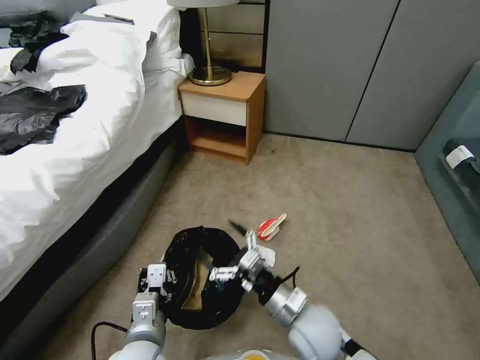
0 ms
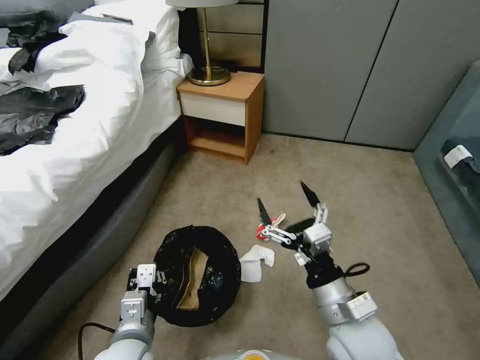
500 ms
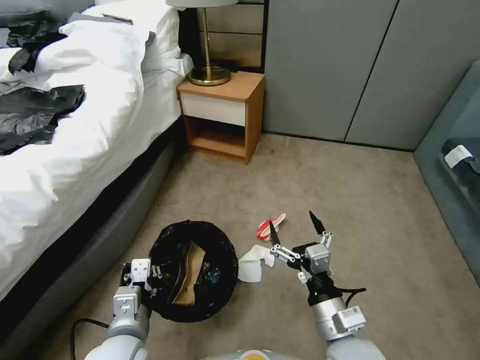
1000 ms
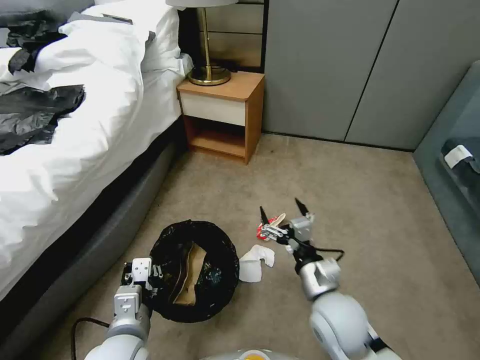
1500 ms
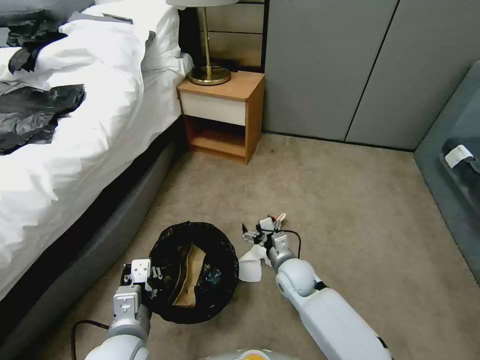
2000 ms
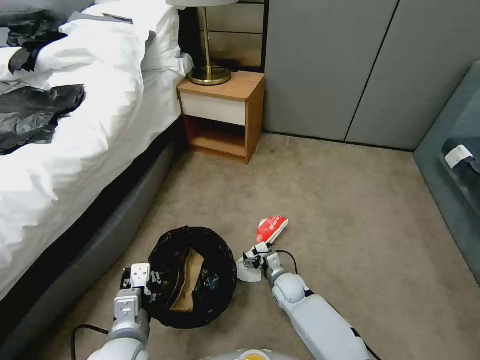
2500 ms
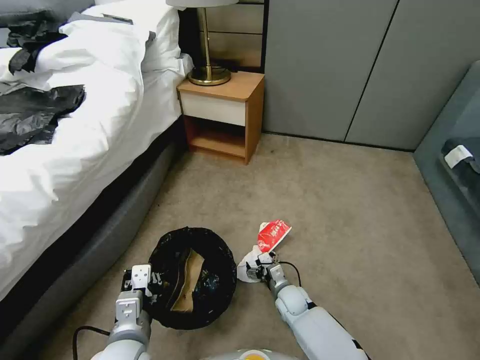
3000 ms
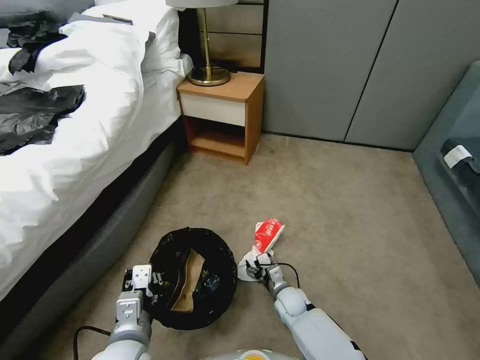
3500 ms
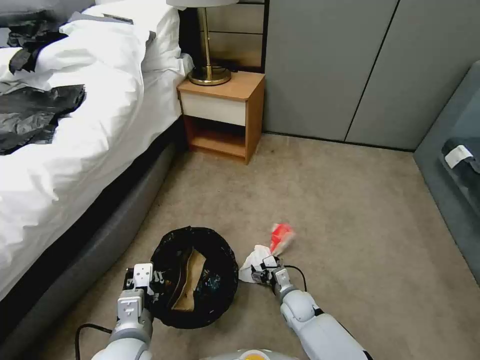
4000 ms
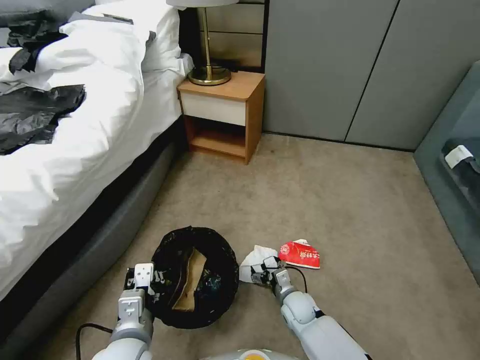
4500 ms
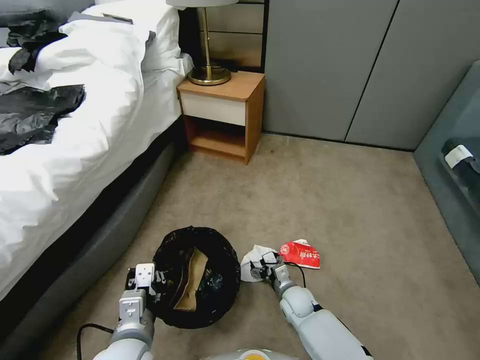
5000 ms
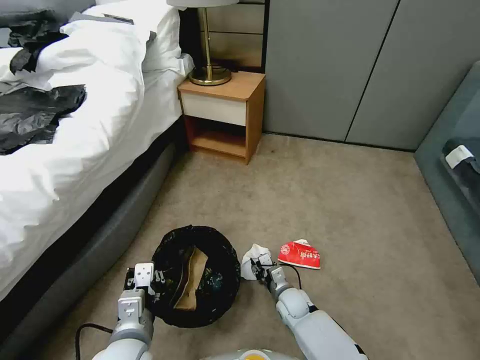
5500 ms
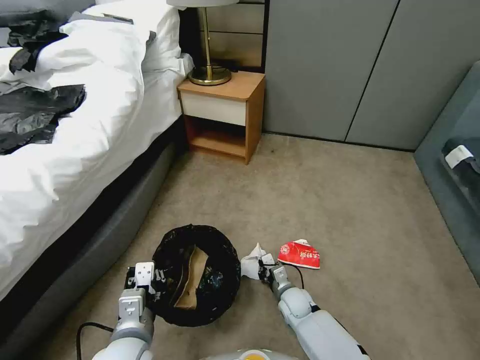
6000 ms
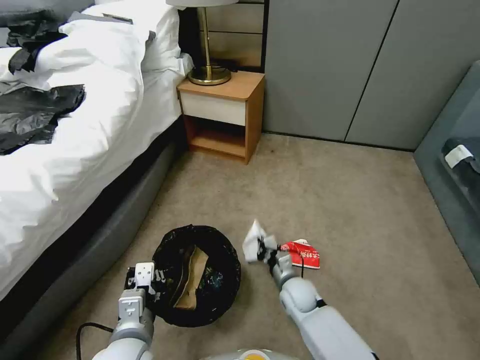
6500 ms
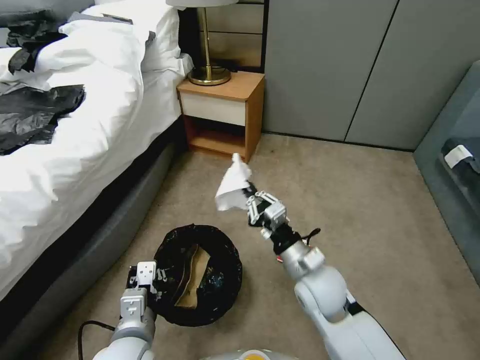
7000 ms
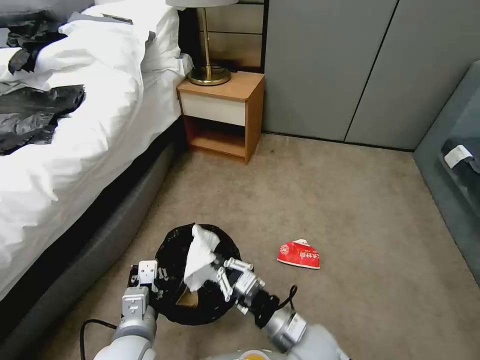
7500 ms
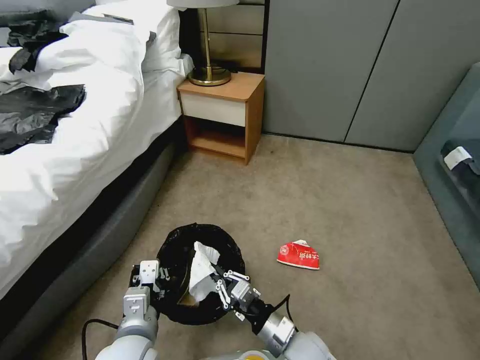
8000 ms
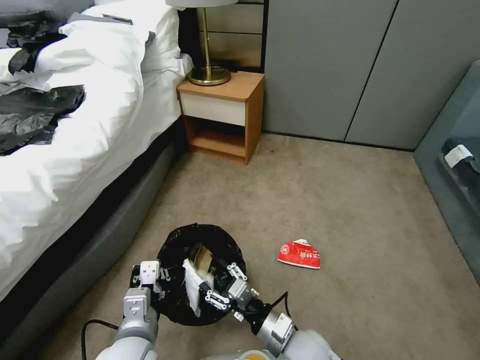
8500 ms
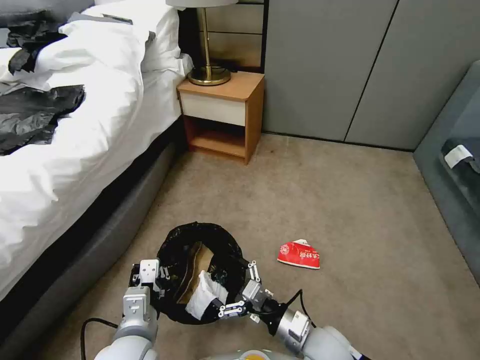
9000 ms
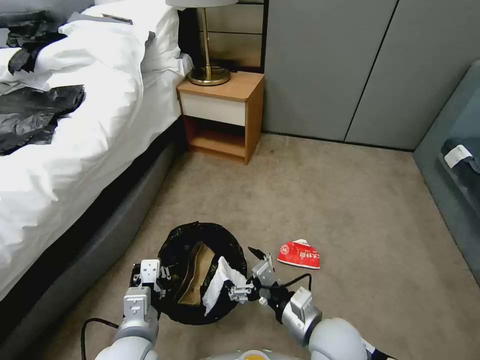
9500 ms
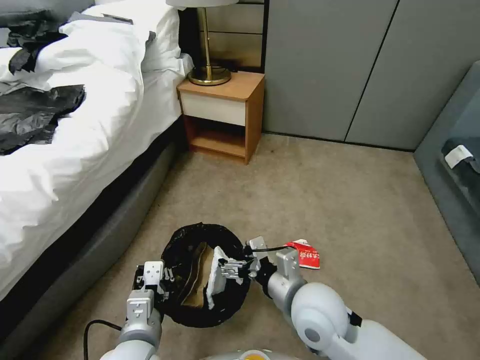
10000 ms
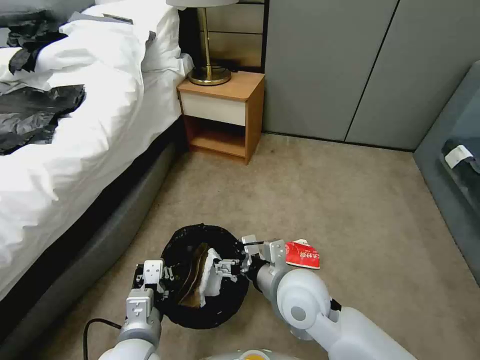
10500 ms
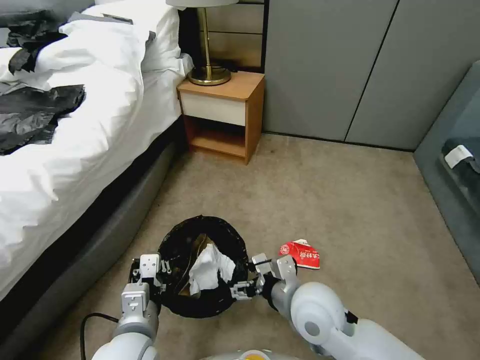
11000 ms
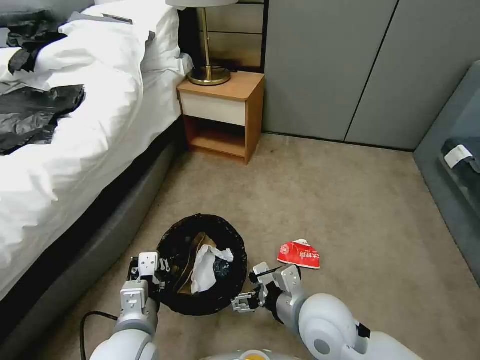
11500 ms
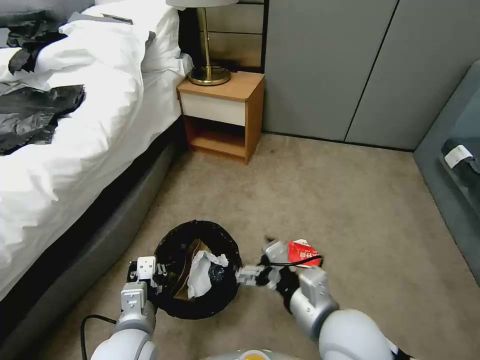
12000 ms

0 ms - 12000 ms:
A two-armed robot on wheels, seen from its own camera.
Task of the whole recording: Pick up the trash bin, then pick up the garbage from the floor and place it into the trash bin.
0 ms - 2000 ms: The right gripper moves forward and downward, some 15 cm.
2000 ms - 4000 ms: The right gripper travels downward by approximately 15 cm.
4000 ms - 6000 ms: The right gripper closes.
6000 ms - 8000 ms: The right gripper goes approximately 20 cm upward and backward.
8000 ms - 10000 ms: The right gripper goes some 15 cm upward, and opens up.
10000 ms - 12000 ms: The right gripper moves backward, about 5 cm.

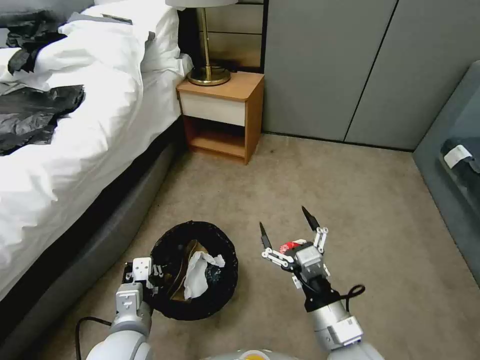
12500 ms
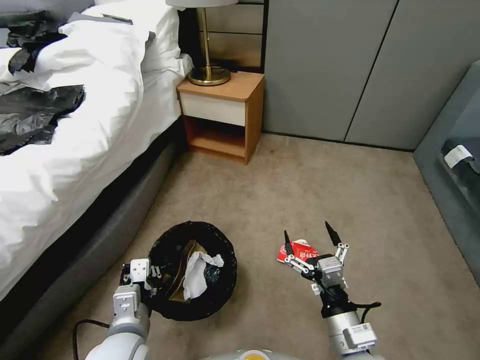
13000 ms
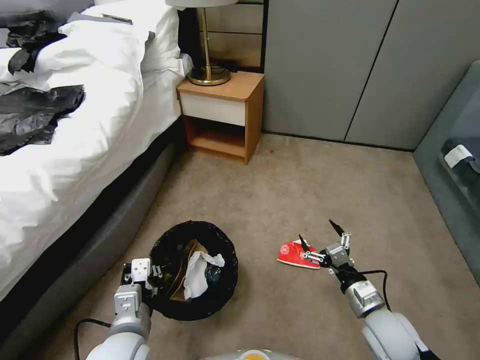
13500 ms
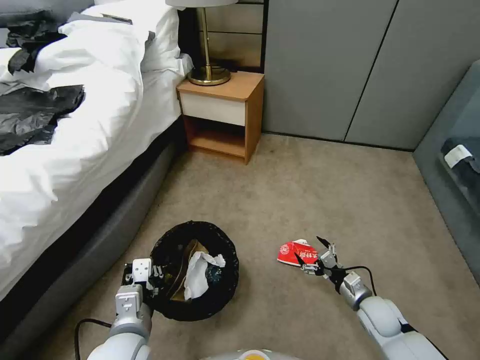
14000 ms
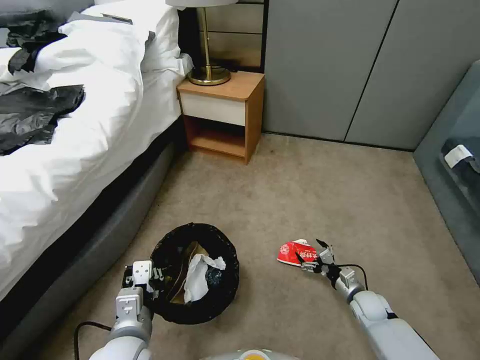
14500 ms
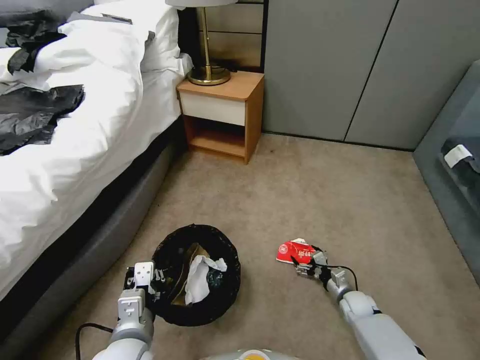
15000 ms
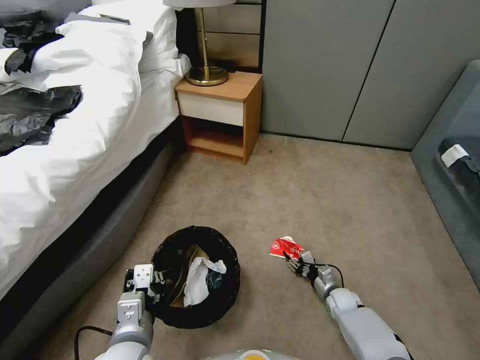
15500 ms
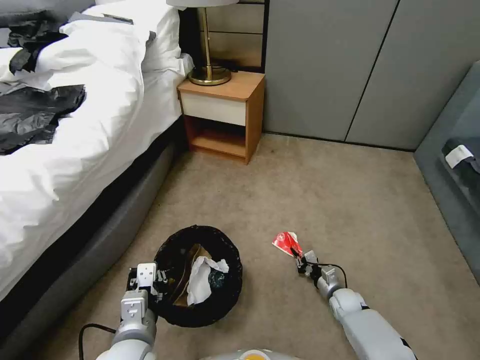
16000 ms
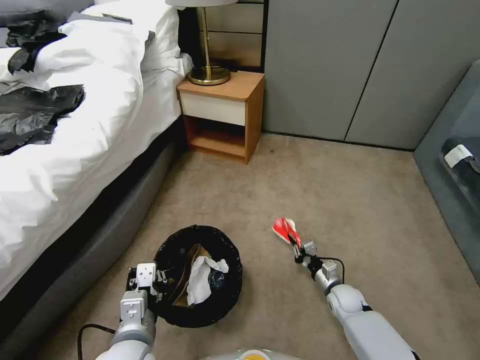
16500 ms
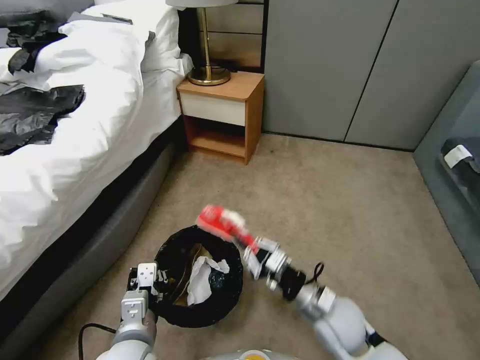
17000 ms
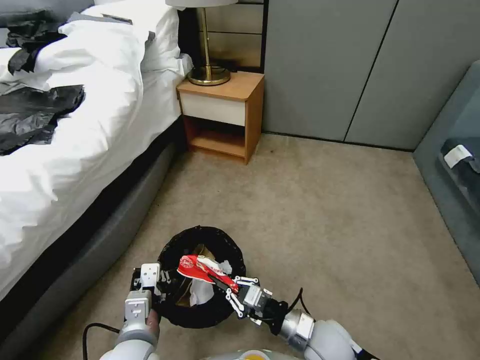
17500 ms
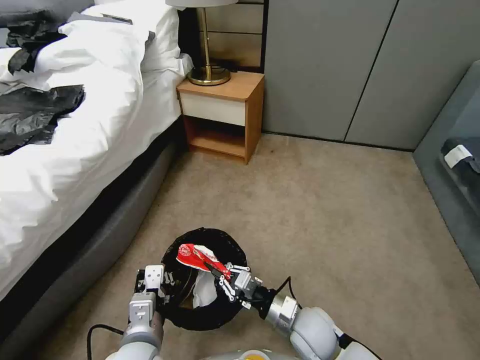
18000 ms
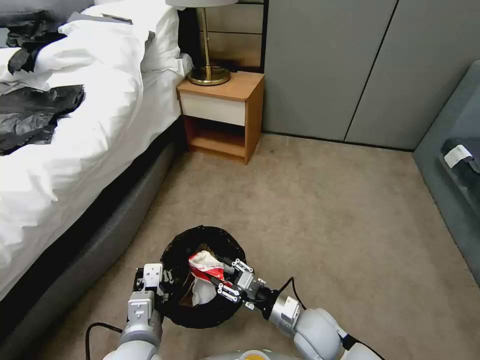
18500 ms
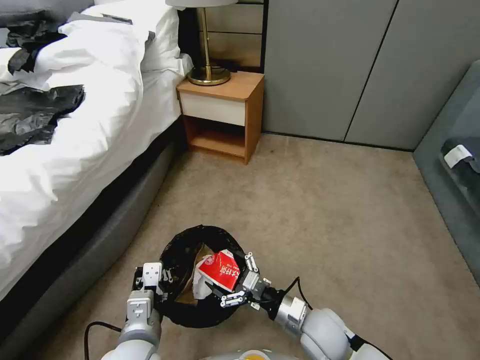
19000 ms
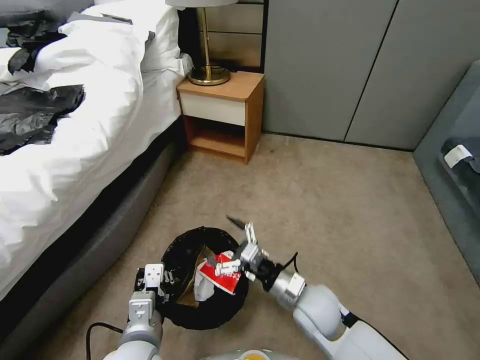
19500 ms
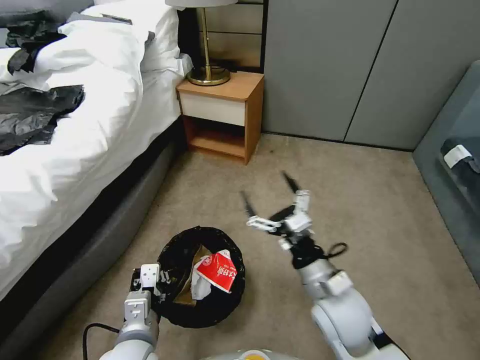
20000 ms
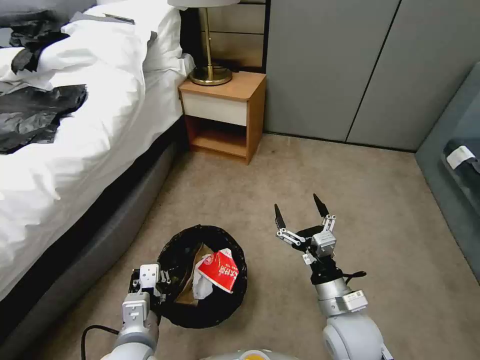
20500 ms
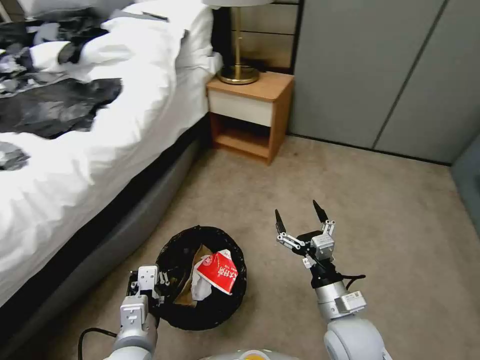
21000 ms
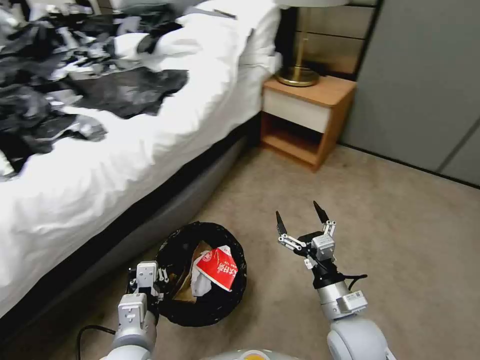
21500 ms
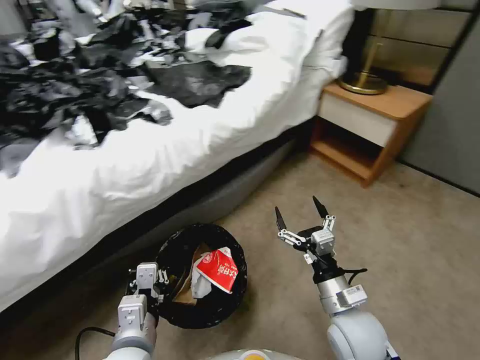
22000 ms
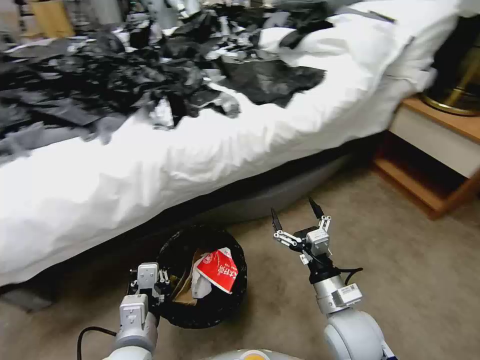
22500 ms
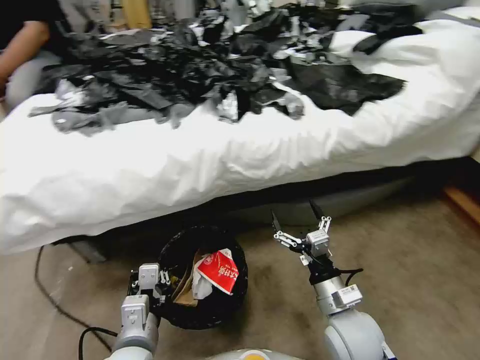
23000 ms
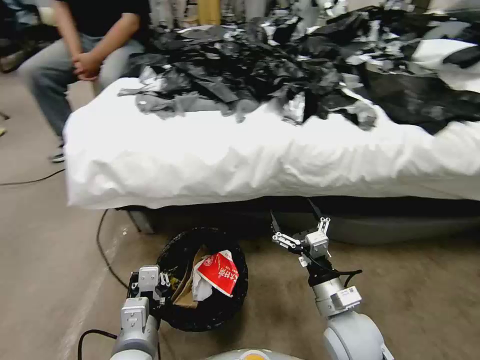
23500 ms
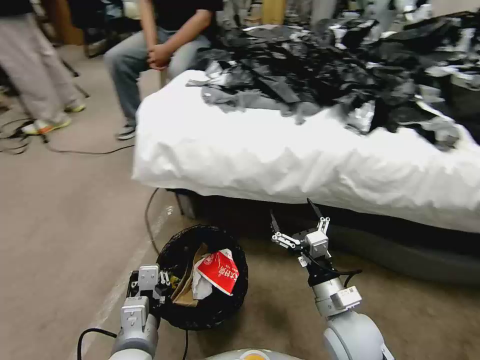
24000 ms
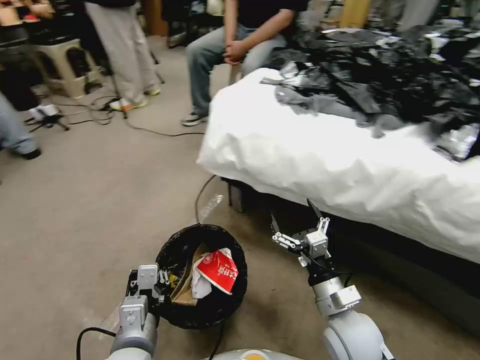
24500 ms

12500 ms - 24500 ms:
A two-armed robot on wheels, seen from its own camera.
Task of the whole recording: Pick up the trash bin, then pick up the garbage from the floor and place it into the trash bin.
12500 ms - 14500 ms: The right gripper shifts approximately 35 cm downward, to the right and forward.
14500 ms - 16500 ms: The right gripper goes about 5 cm to the left, and closes up.
16500 ms - 18500 ms: The right gripper goes roughly 25 cm to the left, upward and backward, and opens its fingers.
18500 ms - 20500 ms: The right gripper goes approximately 10 cm upward, and opens.

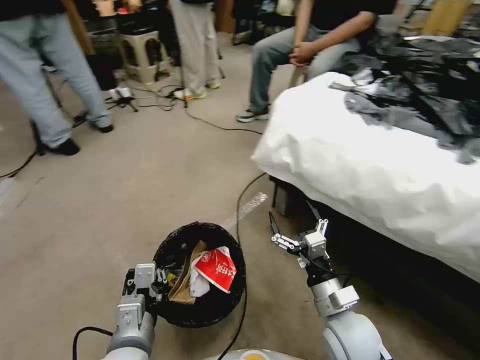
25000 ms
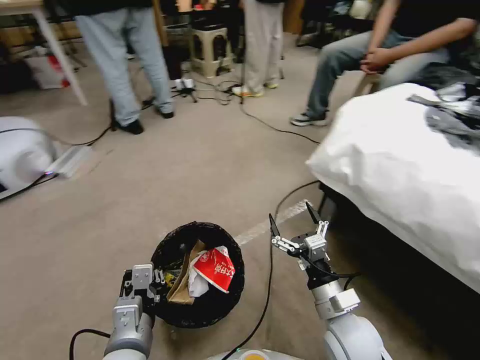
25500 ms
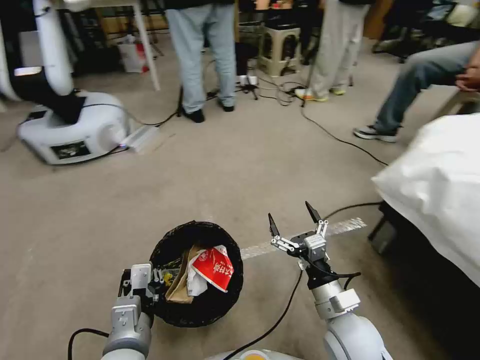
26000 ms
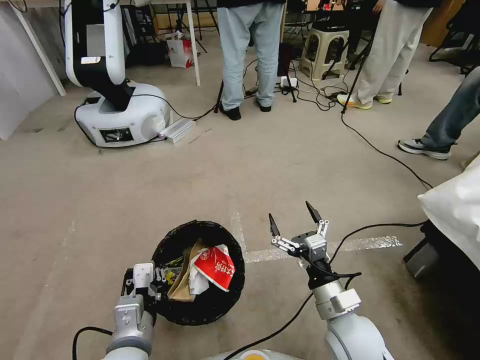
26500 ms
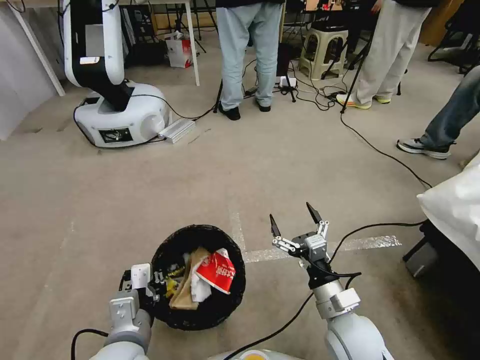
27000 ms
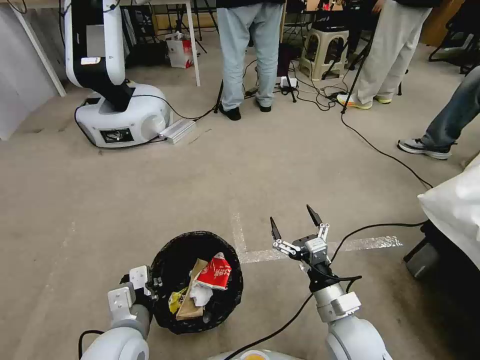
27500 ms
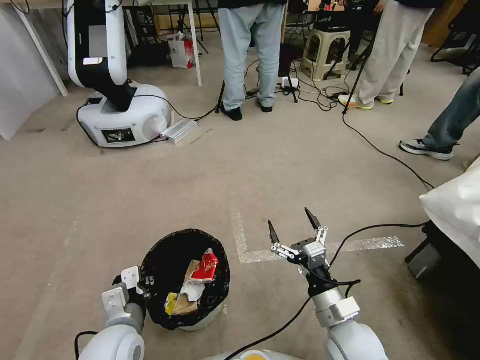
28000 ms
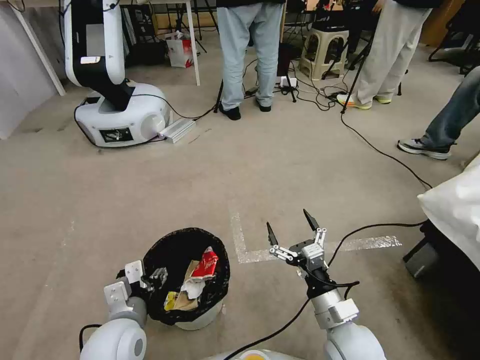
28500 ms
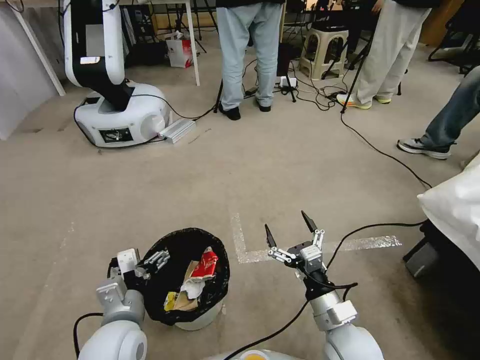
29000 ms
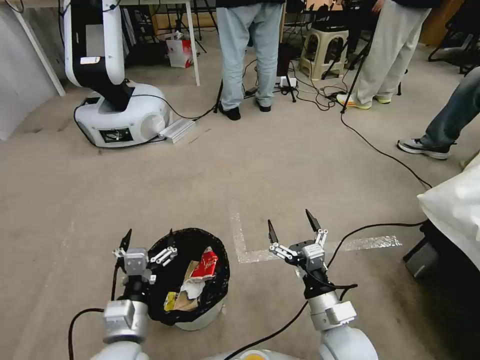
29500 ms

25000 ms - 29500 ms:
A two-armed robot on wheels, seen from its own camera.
Task of the whole recording: Pick up the trash bin, then pick up the garbage from the floor and place it into the trash bin.
27000 ms - 29500 ms: The left gripper opens.
